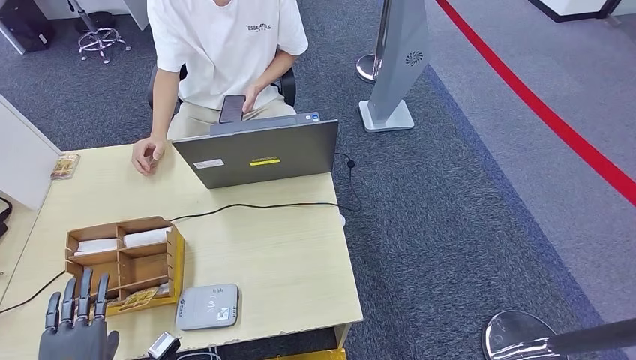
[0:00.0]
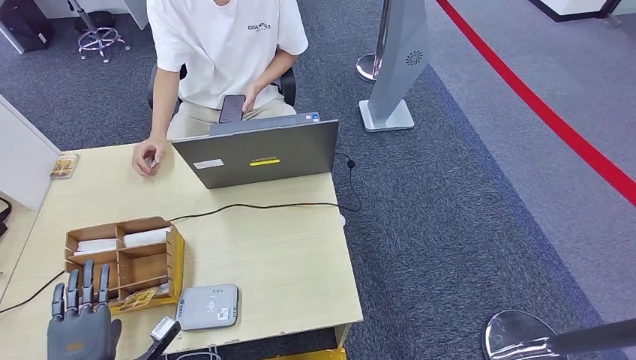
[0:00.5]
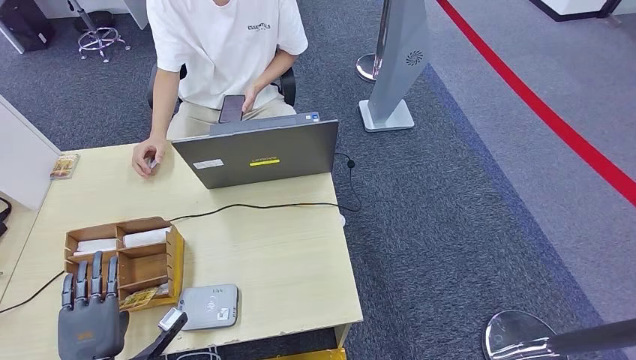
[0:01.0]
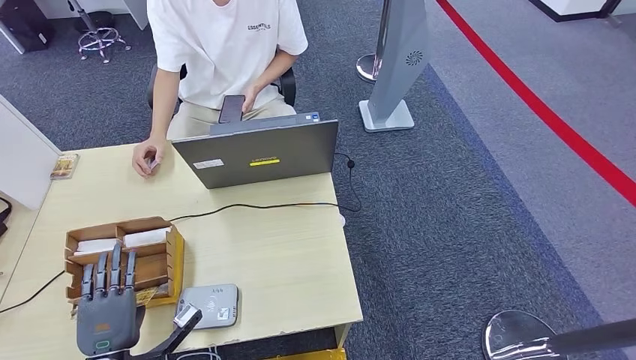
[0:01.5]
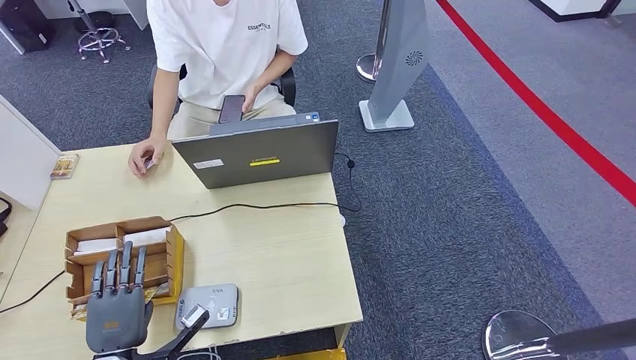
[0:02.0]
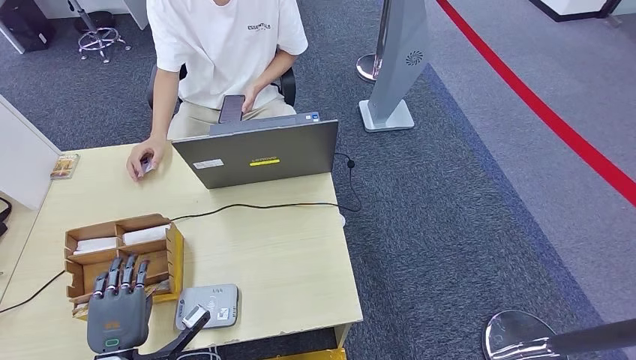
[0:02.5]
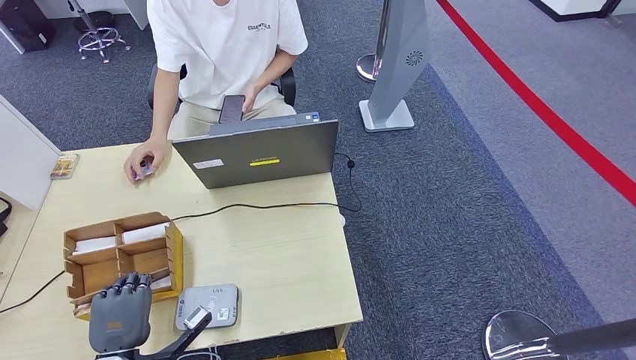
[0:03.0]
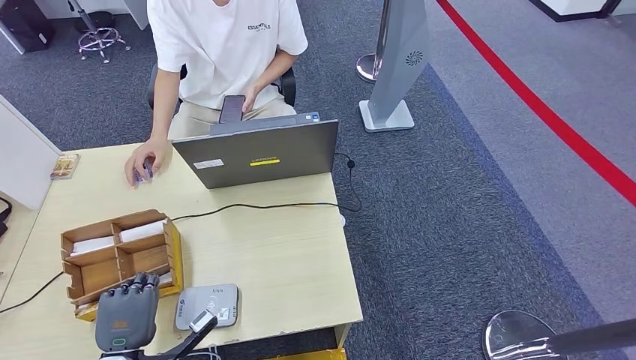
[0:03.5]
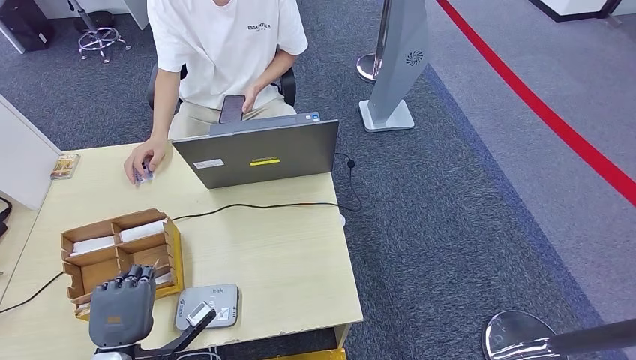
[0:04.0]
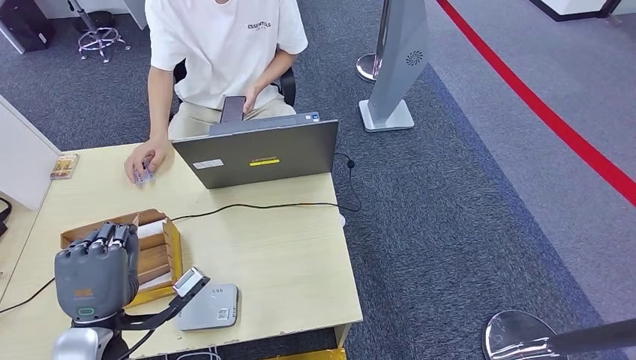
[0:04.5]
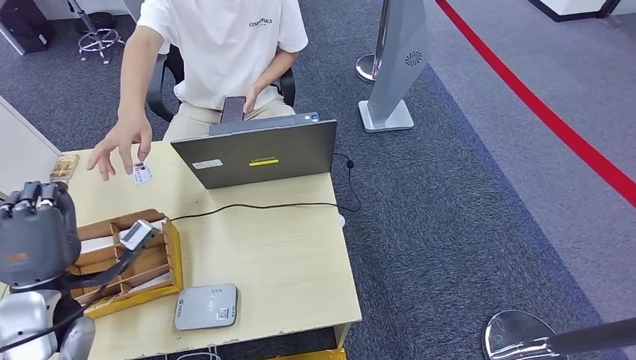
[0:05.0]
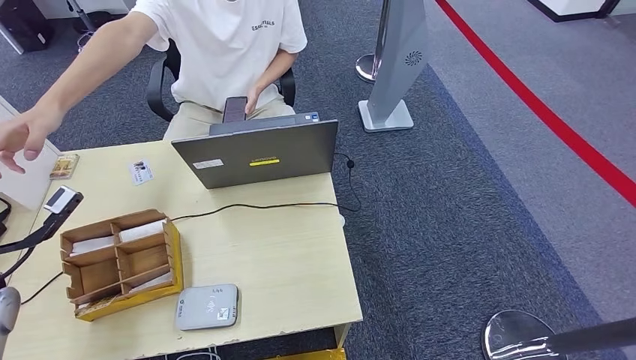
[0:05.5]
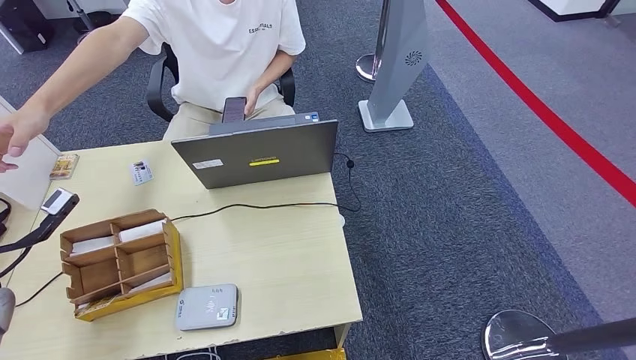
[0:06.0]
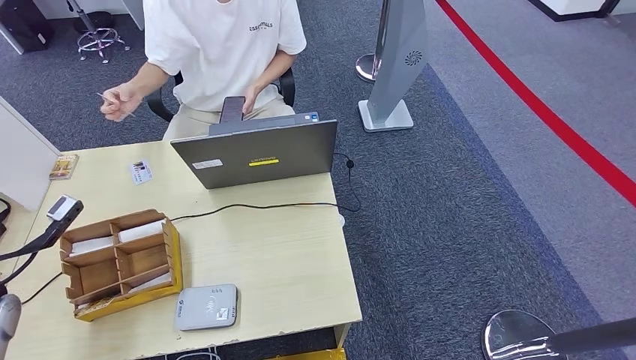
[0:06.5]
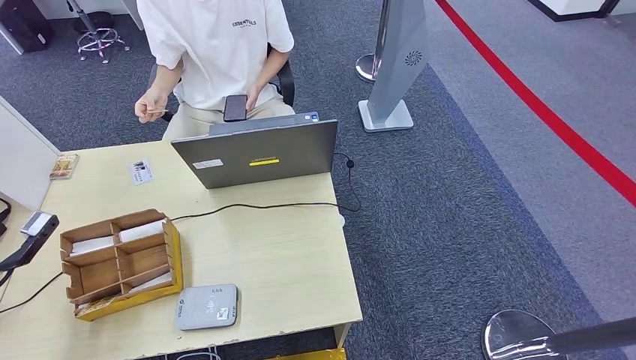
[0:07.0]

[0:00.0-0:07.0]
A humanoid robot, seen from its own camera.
Step, 0:00.0 to 0:03.5: Pick up the room key from the key card box.
Step, 0:04.0 to 0:07.0: Hand the room key to the person.
0:00.0 to 0:02.0: The left hand changes place by some 5 cm.
0:02.0 to 0:03.5: Neither hand changes place.
0:03.5 to 0:05.0: The left hand travels upward and forward by roughly 15 cm.
0:05.0 to 0:07.0: The left hand moves to the left, about 15 cm.
